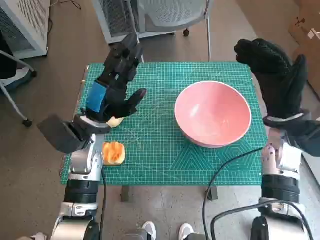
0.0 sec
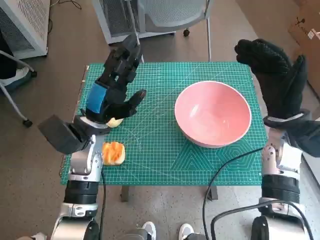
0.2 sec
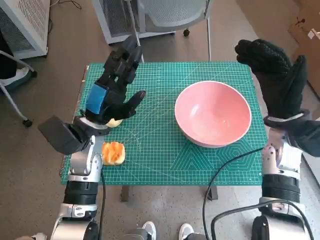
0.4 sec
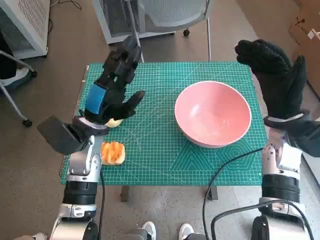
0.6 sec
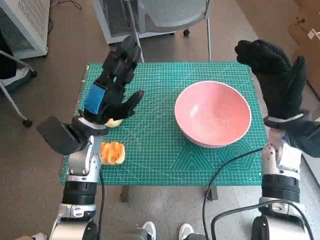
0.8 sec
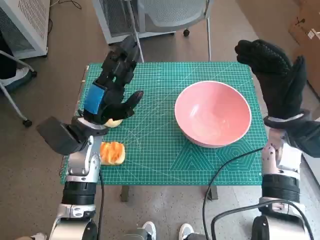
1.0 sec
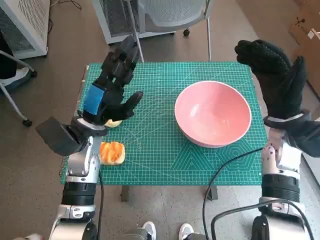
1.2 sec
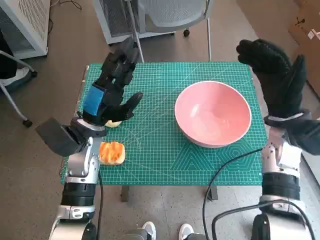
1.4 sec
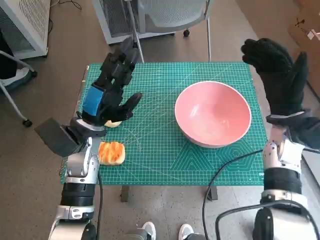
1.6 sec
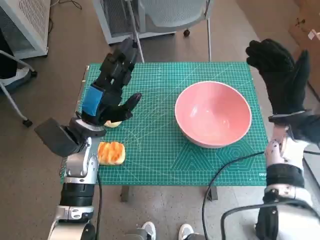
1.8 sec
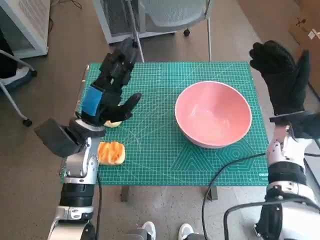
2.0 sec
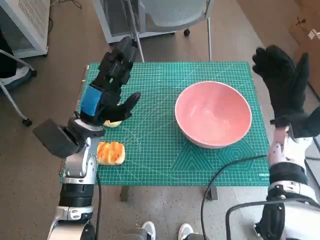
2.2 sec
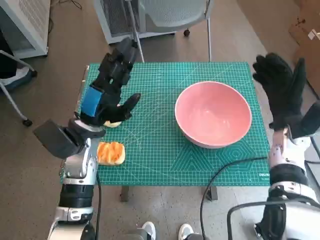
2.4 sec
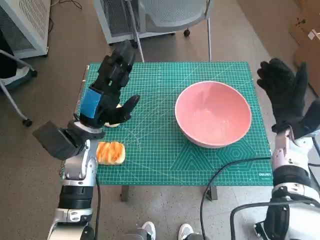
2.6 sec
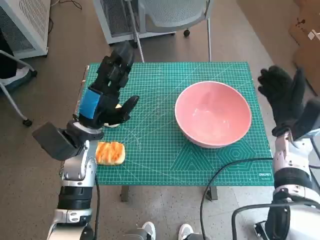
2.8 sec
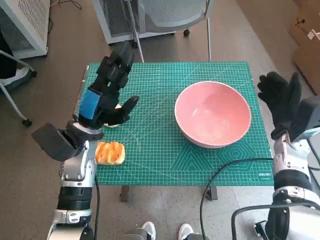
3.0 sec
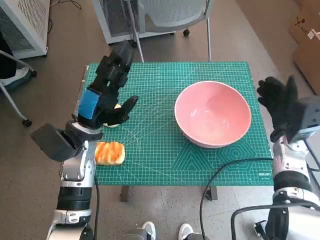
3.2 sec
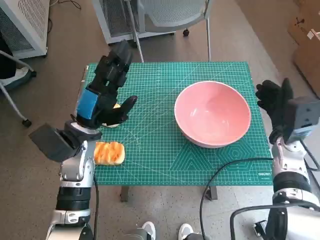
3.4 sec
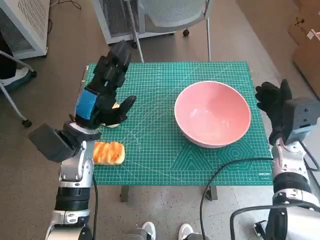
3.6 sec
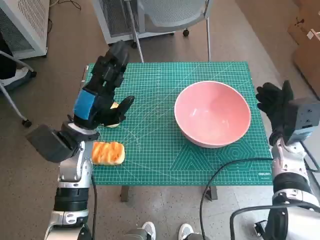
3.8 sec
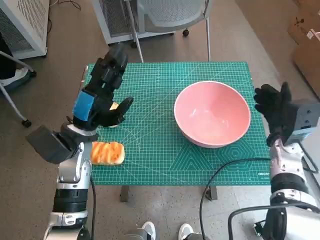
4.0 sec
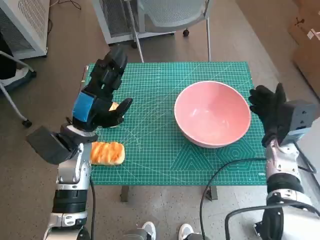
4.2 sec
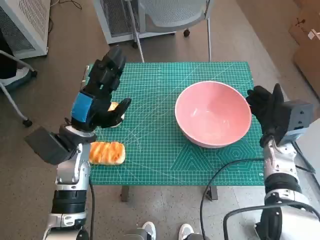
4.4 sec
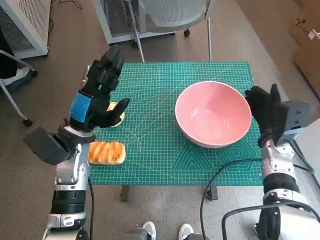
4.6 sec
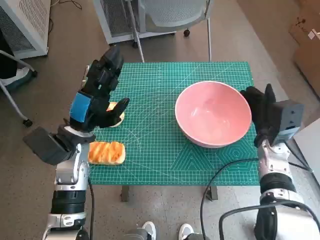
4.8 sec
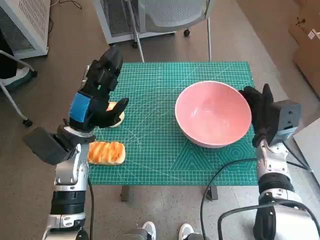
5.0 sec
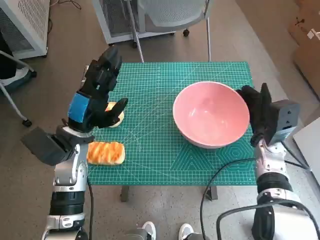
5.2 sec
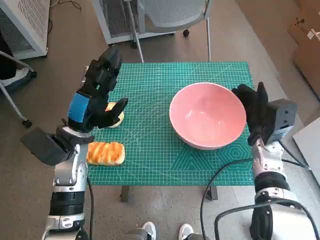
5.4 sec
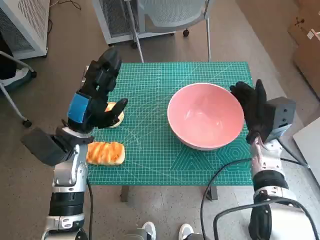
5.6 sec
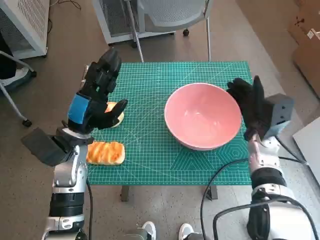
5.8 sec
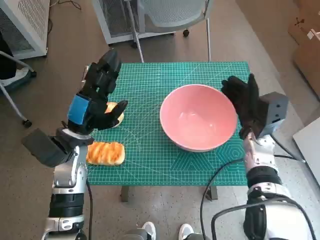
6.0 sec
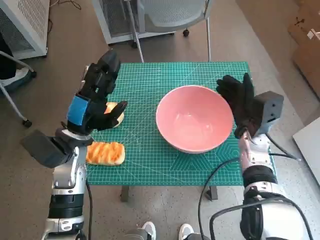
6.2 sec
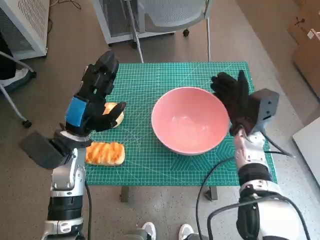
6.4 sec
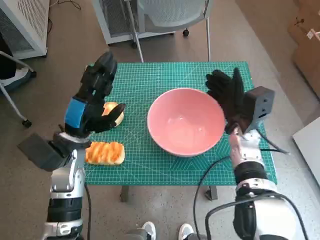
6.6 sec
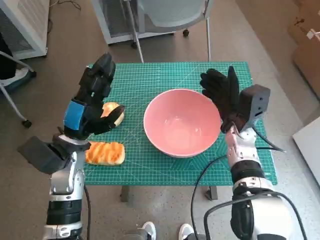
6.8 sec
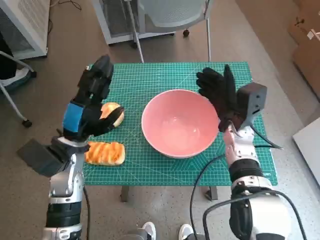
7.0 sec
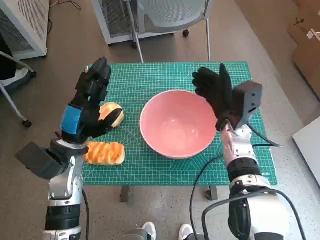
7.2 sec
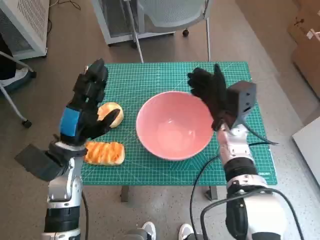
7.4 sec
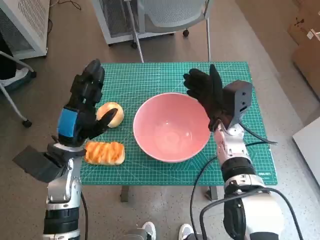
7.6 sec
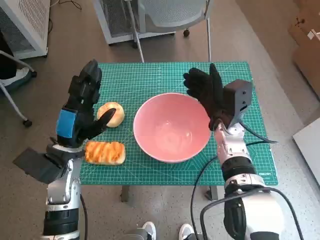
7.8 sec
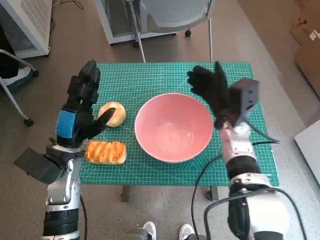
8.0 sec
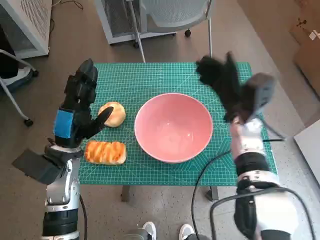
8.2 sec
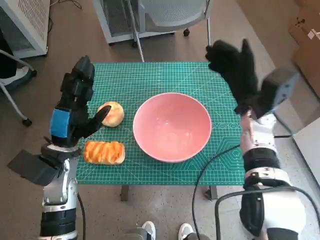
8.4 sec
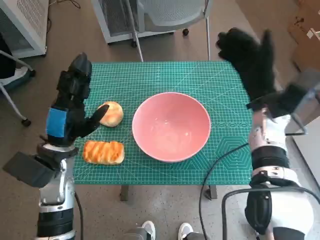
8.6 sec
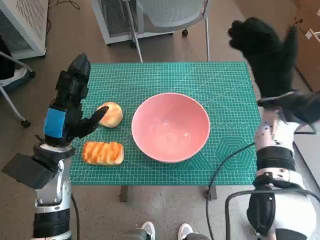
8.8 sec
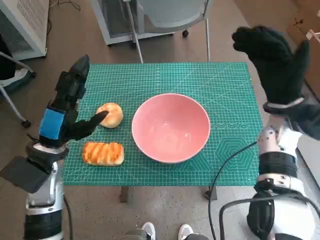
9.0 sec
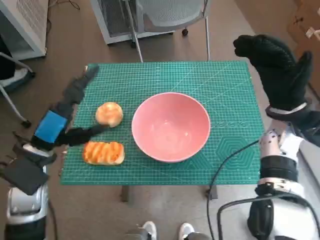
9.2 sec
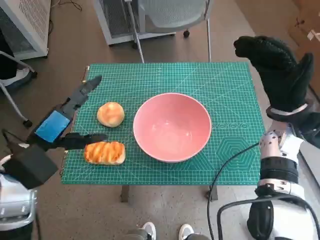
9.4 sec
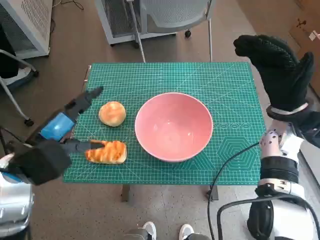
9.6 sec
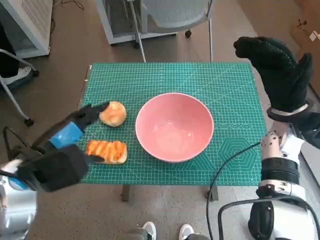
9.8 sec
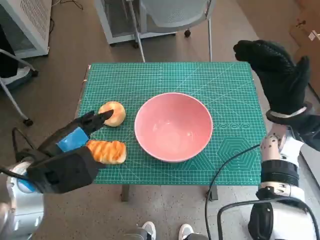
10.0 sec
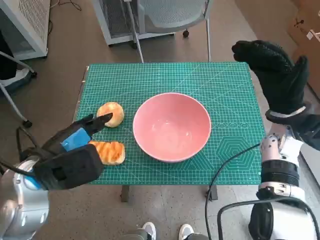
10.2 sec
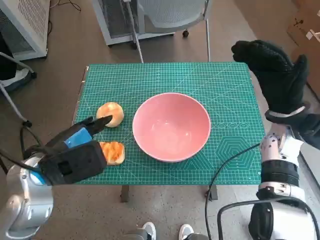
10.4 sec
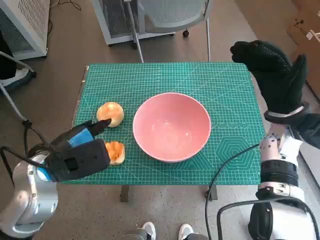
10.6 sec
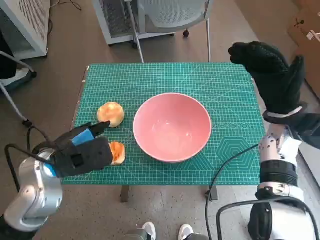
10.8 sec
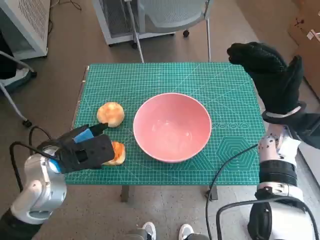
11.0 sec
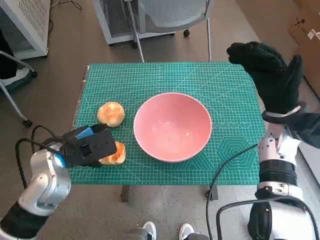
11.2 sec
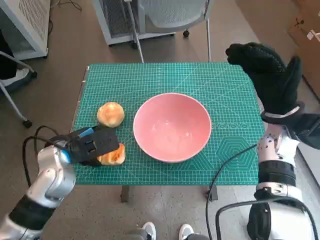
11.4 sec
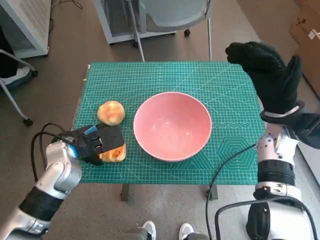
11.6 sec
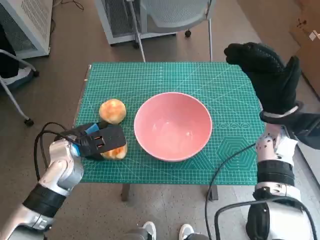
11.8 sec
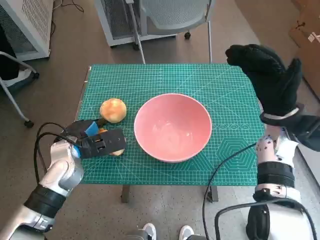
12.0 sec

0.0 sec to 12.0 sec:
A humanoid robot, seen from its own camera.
Step, 0.0 sec to 8.0 sec: Move the pink bowl to the center of table with right hand.
1.6 sec to 3.0 sec: The right hand goes roughly 5 cm downward.
3.0 sec to 4.4 sec: The hands move only a little.
6.0 sec to 7.6 sec: The right hand travels to the left by approximately 5 cm.
7.6 sec to 9.0 sec: The right hand travels to the right and upward by about 10 cm.
9.0 sec to 10.4 sec: The left hand shifts by some 5 cm.
10.4 sec to 12.0 sec: The left hand heads downward and forward, covering some 10 cm.

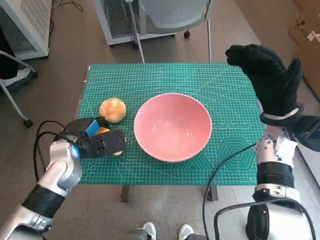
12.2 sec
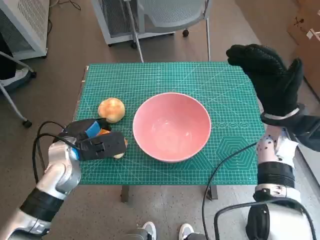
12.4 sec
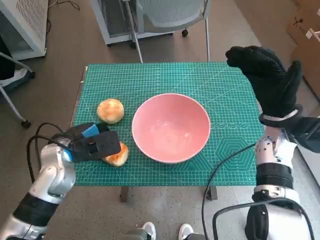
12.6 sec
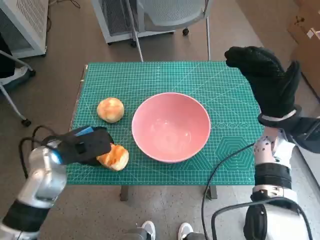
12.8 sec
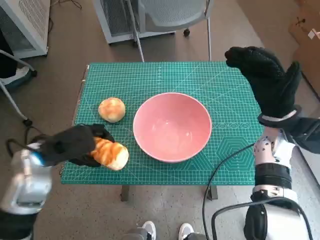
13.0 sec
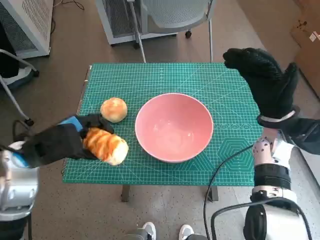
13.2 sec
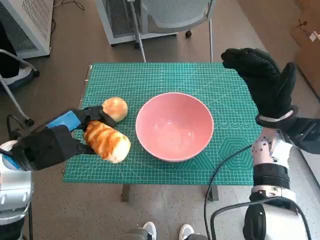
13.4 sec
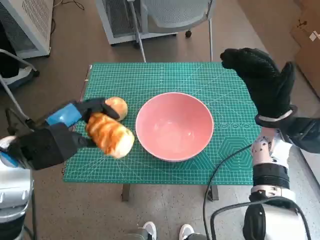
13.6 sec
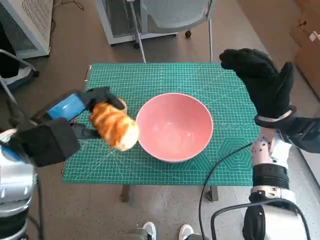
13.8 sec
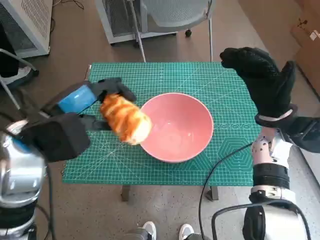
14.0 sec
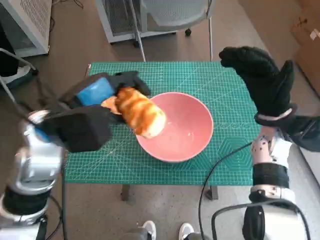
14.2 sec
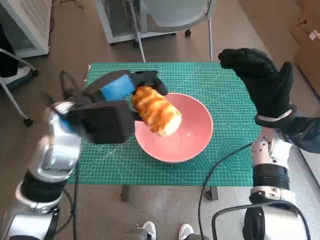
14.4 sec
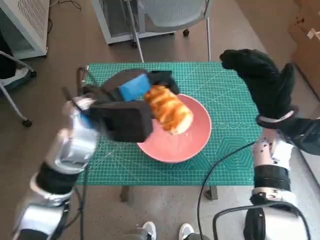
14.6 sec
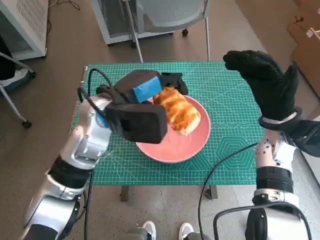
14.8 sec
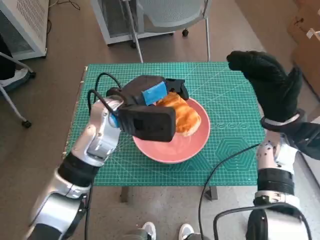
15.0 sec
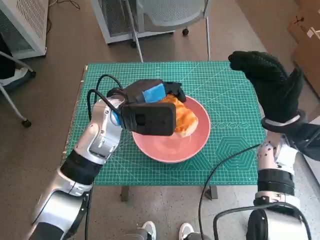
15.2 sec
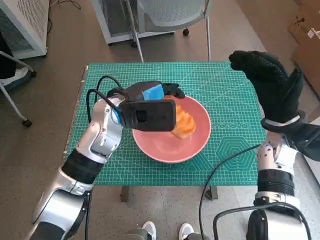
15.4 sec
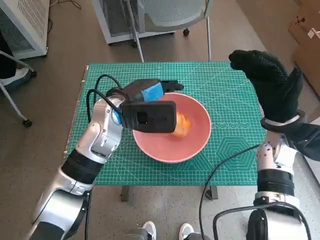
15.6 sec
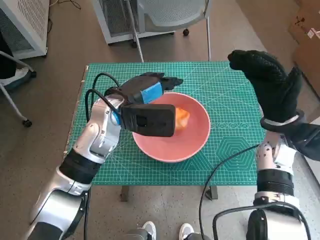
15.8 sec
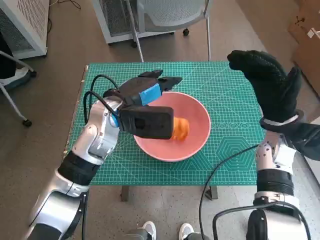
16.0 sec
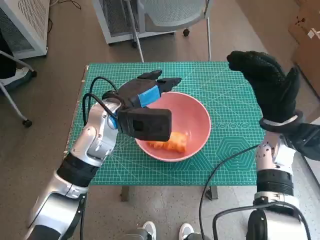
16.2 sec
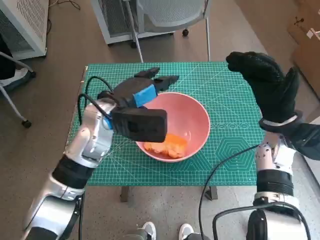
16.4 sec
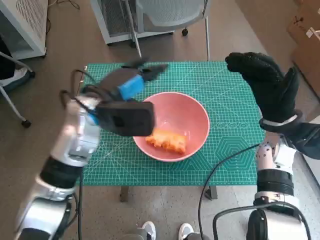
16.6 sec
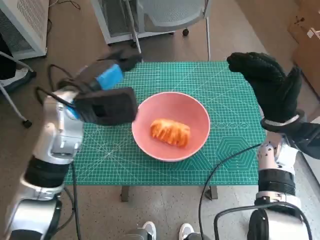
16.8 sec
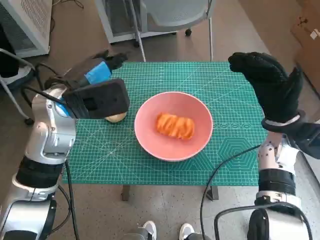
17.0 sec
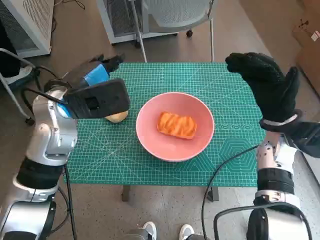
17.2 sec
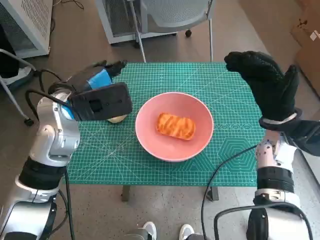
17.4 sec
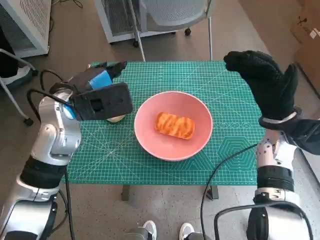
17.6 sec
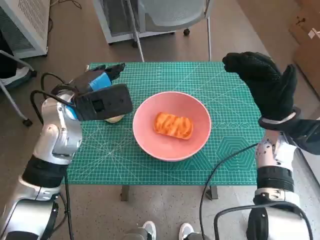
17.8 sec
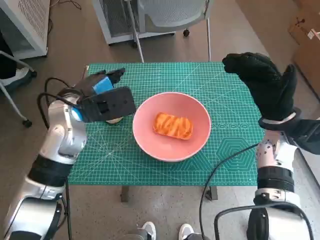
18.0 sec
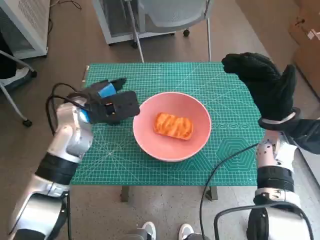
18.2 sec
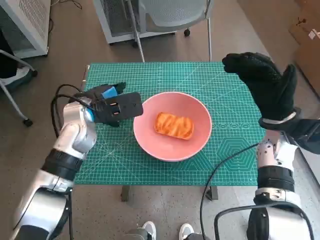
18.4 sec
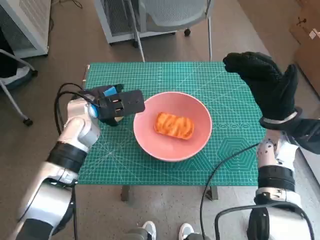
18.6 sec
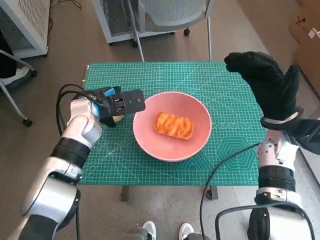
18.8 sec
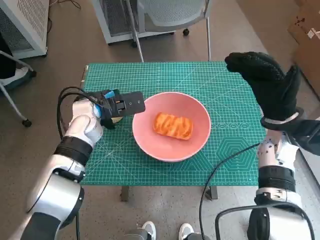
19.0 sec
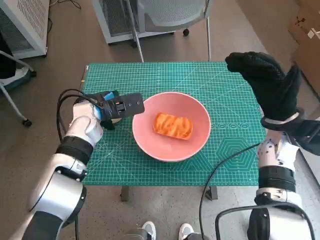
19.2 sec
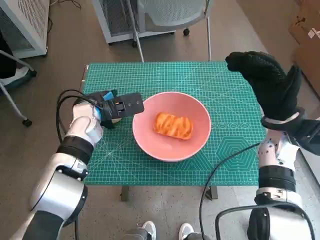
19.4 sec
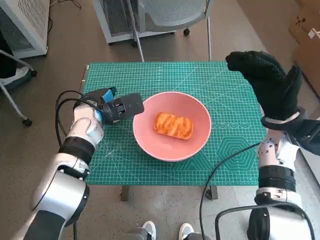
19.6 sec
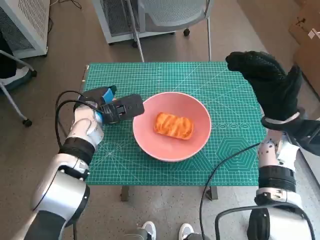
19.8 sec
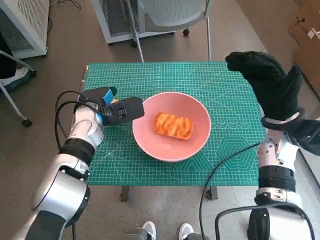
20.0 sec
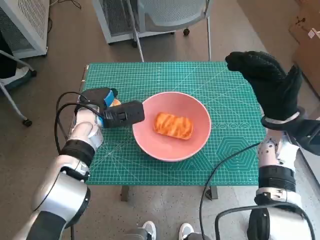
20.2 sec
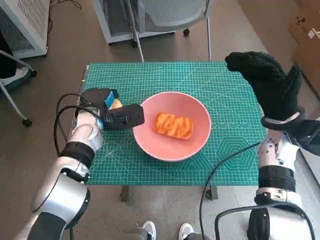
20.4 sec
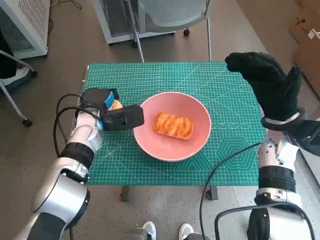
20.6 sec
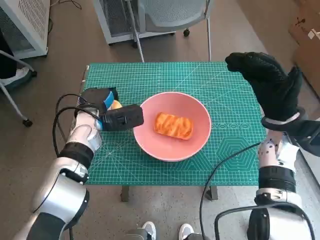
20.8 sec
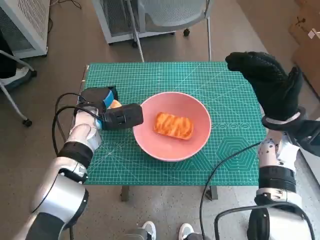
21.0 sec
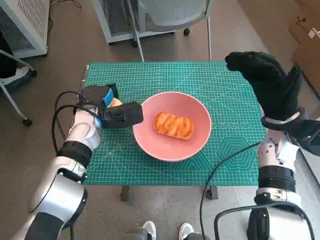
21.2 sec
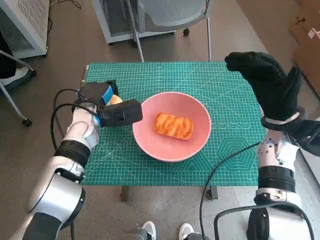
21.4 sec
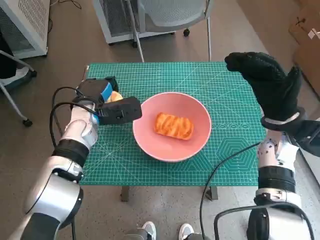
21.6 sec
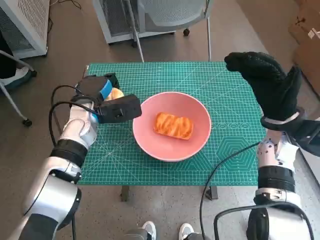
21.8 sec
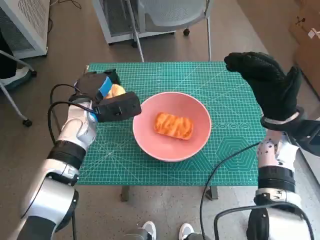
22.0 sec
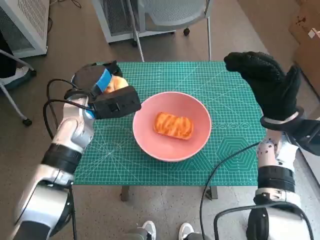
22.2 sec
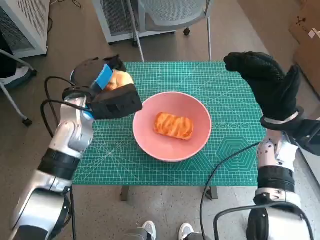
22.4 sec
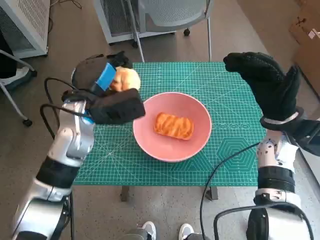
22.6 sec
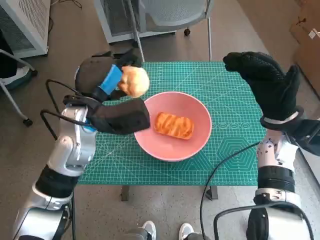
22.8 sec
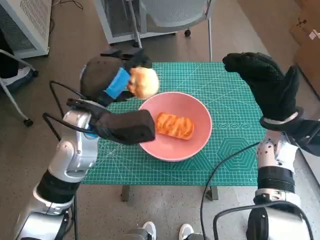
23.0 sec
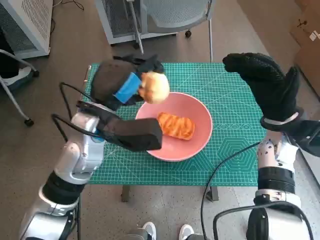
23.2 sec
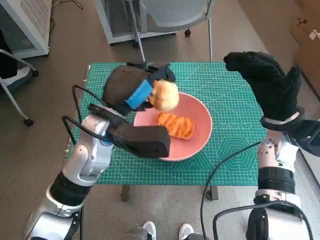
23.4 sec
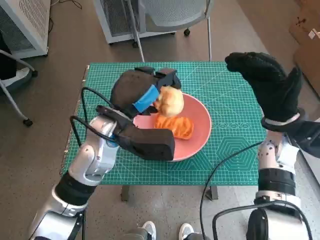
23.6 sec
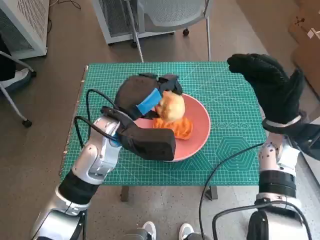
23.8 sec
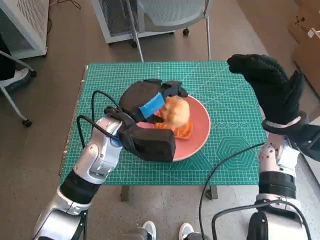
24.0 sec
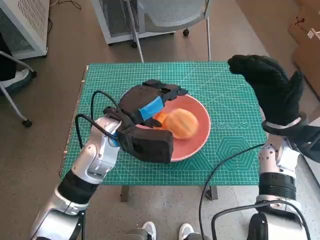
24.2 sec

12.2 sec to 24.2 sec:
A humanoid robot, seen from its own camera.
Step, 12.4 sec to 15.8 sec: Place the long bread in pink bowl with left hand.
Step, 16.0 sec to 20.6 sec: Grasp the round bread with left hand.
12.2 sec to 13.8 sec: The left hand shifts about 10 cm upward.
13.8 sec to 15.2 sec: The left hand travels to the right and forward by approximately 15 cm.
15.2 sec to 16.6 sec: The hands move only a little.
16.6 sec to 18.2 sec: The left hand changes place by roughly 5 cm.
18.2 sec to 19.8 sec: The left hand travels downward by some 5 cm.
19.8 sec to 21.2 sec: The hands stay close to where they were, moving slightly.
21.2 sec to 22.6 sec: The left hand shifts roughly 5 cm upward.
22.6 sec to 24.2 sec: The left hand is displaced to the right by roughly 5 cm.
